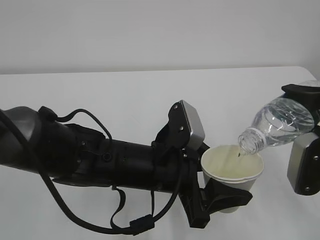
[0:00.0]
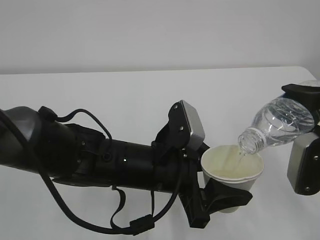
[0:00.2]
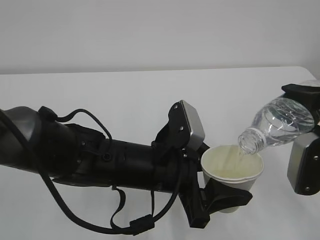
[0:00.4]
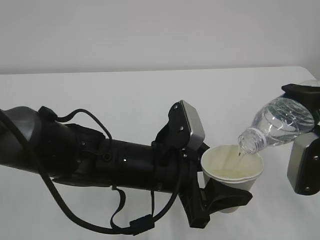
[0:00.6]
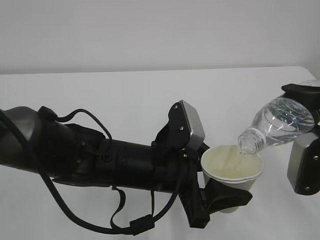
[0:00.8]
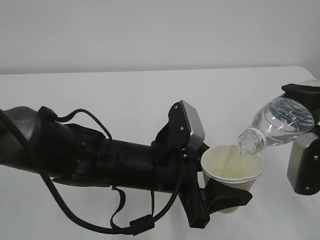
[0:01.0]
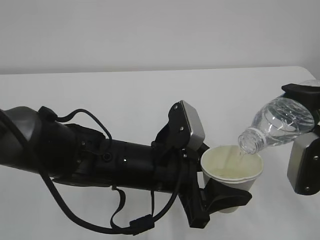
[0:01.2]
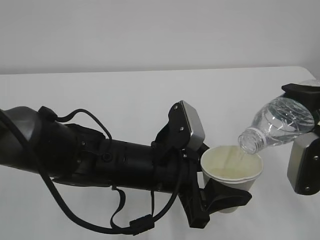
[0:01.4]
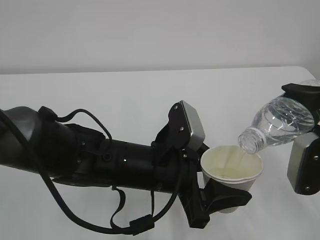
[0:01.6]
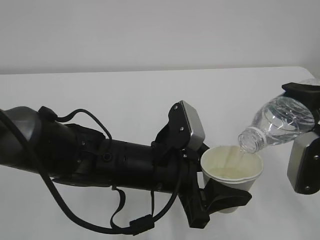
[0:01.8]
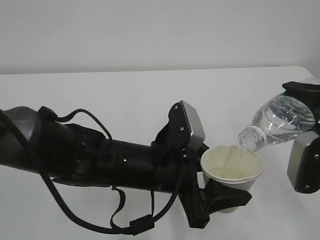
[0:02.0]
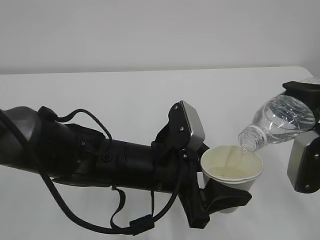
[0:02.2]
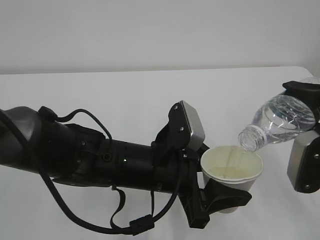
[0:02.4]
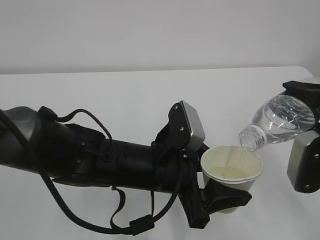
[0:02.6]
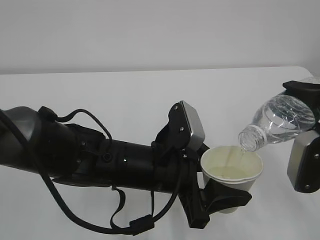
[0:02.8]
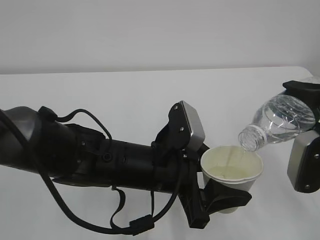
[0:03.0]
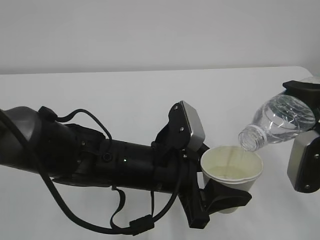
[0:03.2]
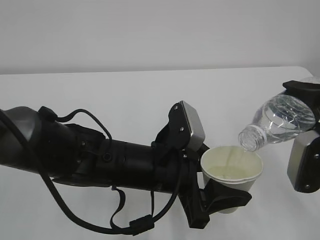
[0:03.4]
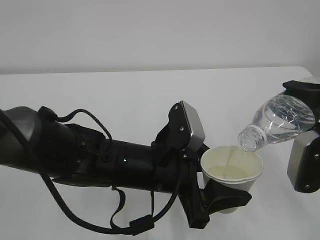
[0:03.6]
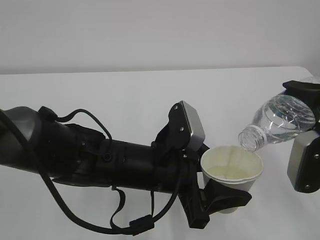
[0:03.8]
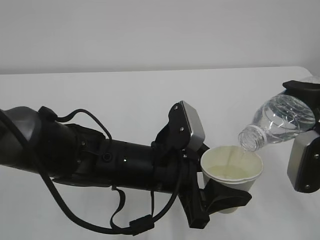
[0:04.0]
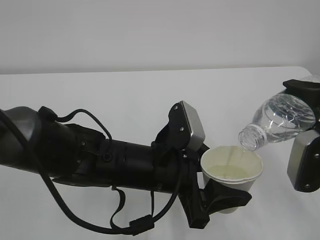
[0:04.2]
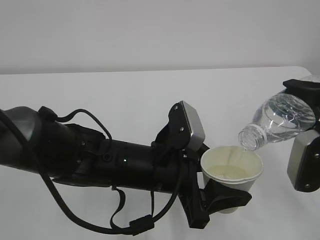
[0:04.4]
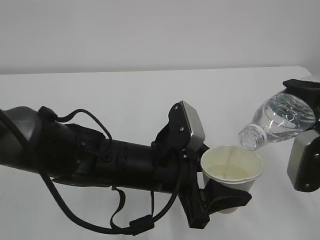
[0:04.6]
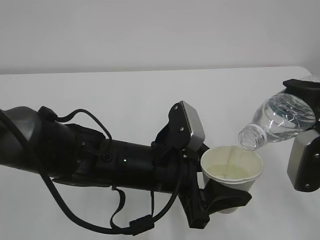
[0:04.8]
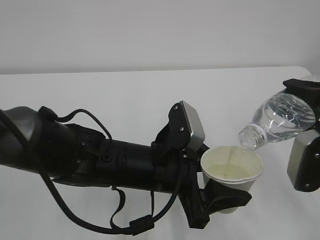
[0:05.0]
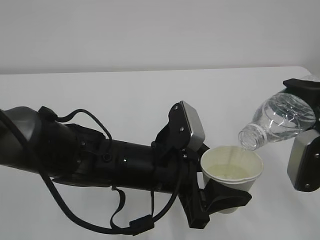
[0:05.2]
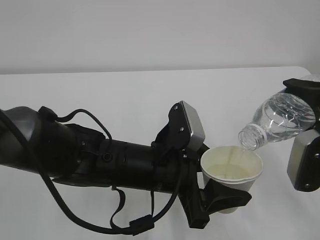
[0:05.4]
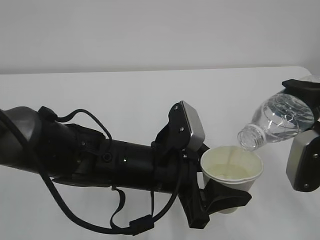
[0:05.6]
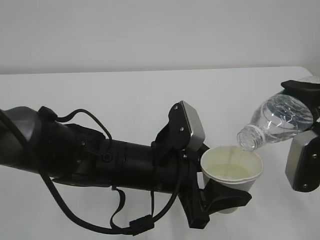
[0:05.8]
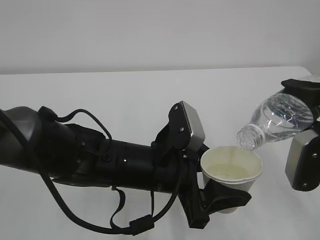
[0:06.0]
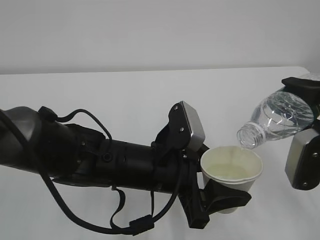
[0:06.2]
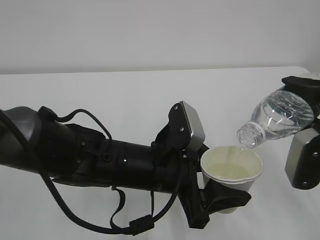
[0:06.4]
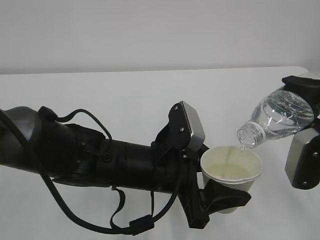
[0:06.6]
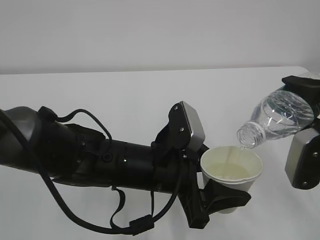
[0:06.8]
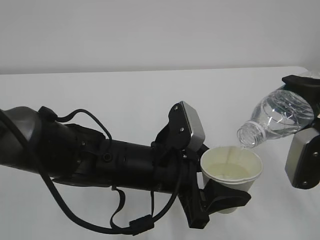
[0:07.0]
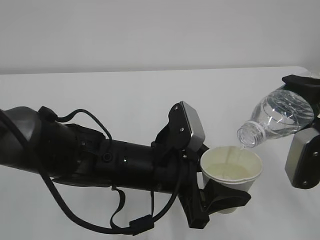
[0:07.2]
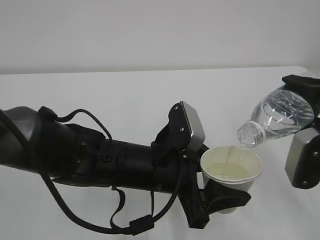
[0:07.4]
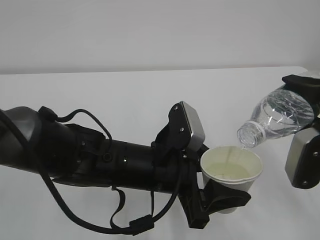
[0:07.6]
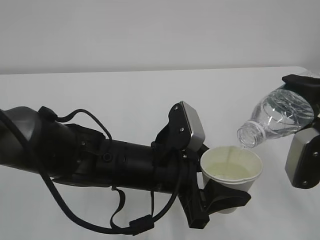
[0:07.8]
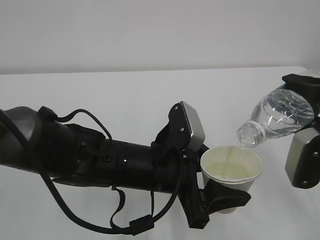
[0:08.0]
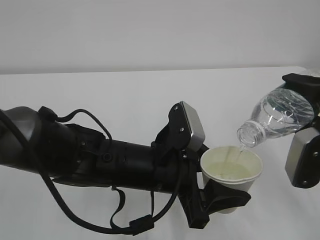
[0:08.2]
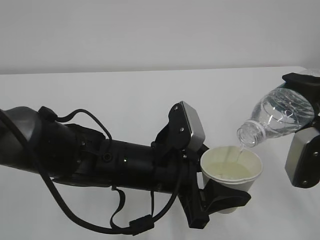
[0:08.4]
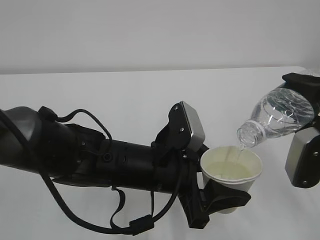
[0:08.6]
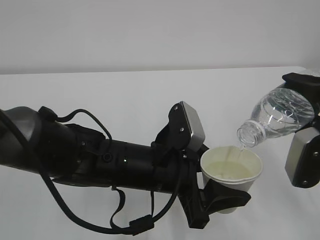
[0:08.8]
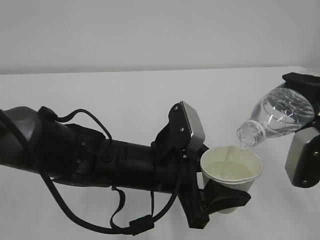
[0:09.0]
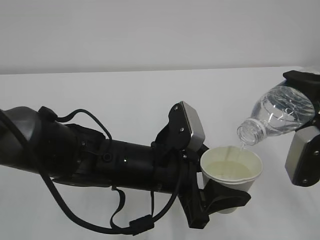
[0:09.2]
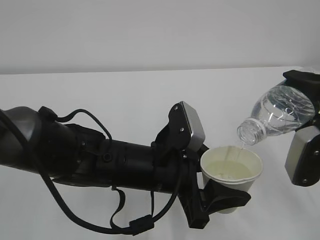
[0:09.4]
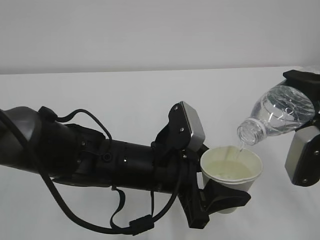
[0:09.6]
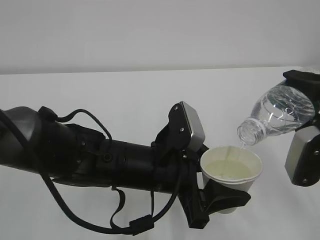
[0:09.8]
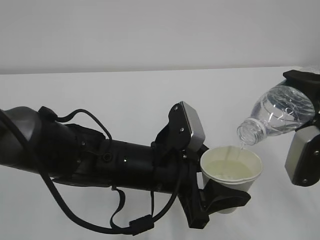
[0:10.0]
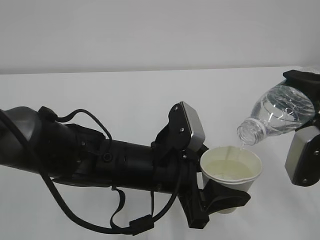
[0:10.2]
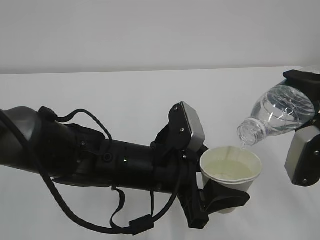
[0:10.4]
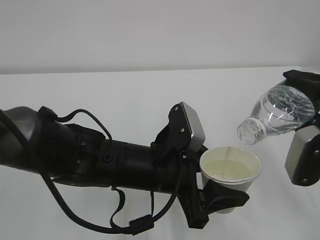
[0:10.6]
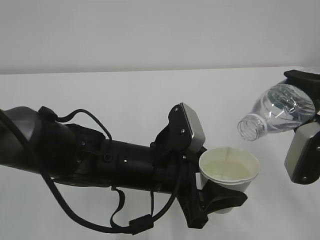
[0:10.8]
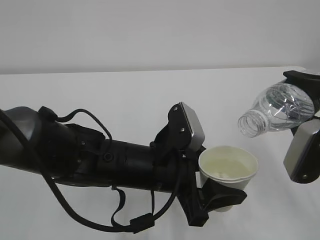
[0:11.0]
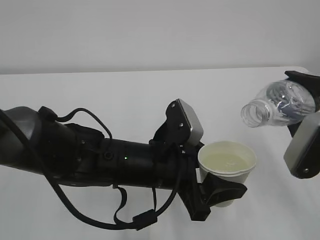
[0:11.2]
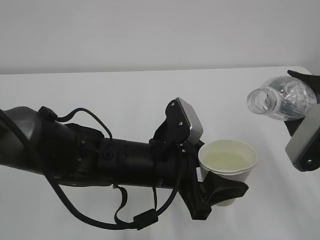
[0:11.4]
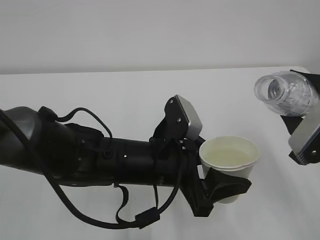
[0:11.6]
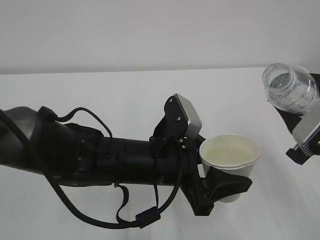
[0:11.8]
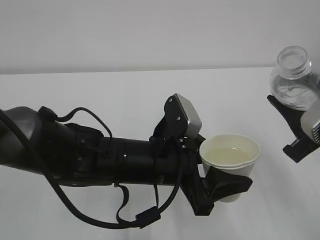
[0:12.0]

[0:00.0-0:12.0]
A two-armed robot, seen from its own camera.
0:00.0 to 0:07.6: Neither gripper changes place.
0:07.6 to 0:10.4: Both grippers stay put.

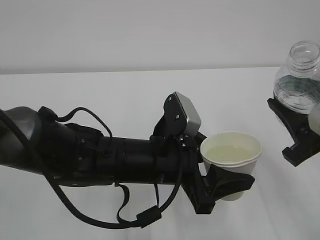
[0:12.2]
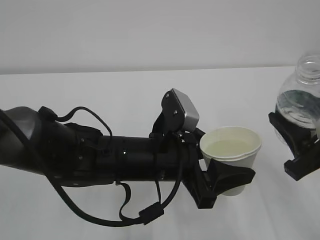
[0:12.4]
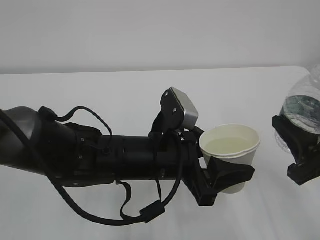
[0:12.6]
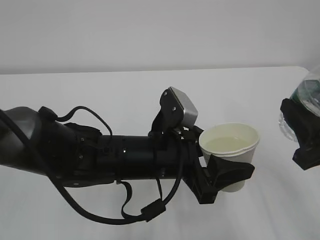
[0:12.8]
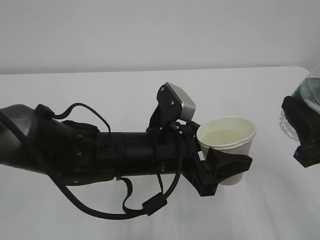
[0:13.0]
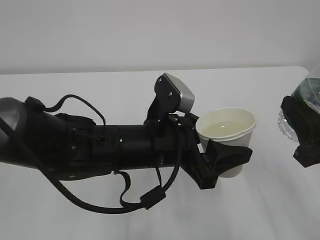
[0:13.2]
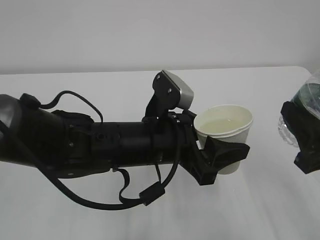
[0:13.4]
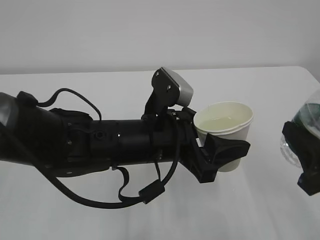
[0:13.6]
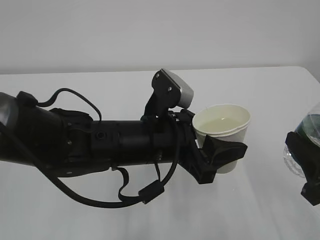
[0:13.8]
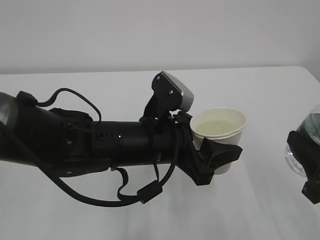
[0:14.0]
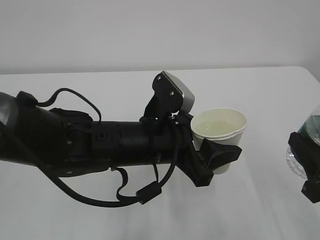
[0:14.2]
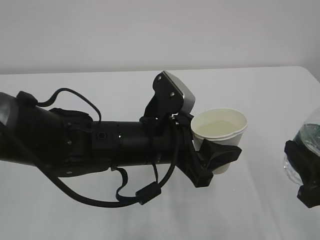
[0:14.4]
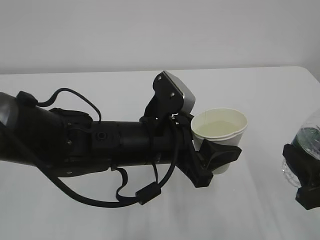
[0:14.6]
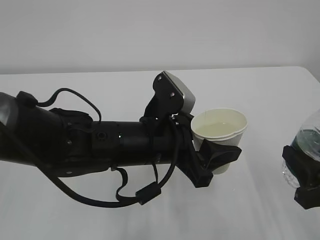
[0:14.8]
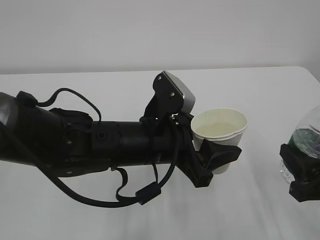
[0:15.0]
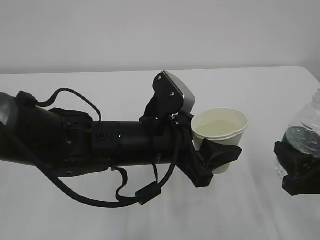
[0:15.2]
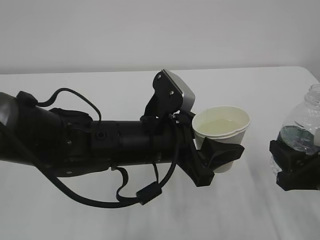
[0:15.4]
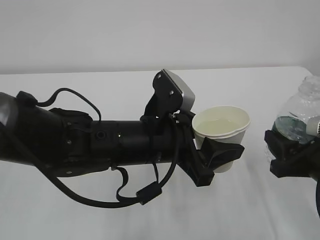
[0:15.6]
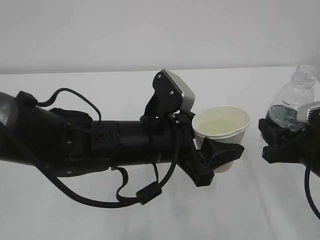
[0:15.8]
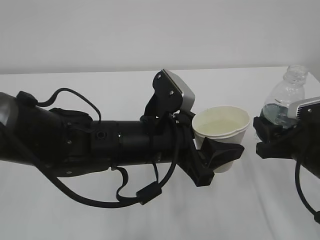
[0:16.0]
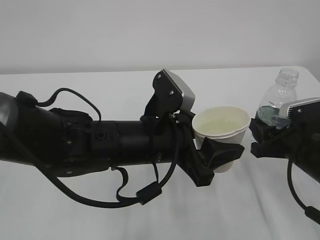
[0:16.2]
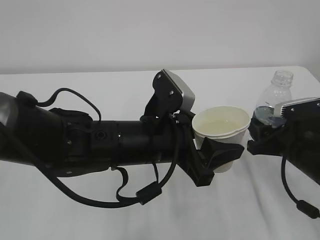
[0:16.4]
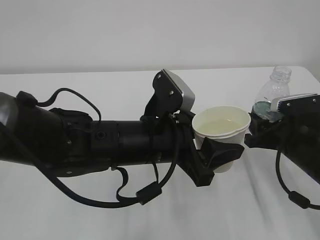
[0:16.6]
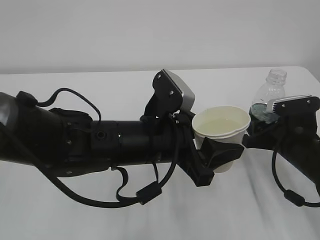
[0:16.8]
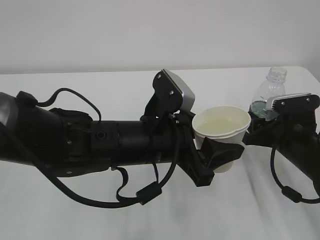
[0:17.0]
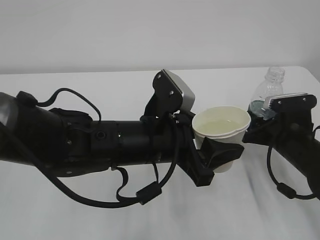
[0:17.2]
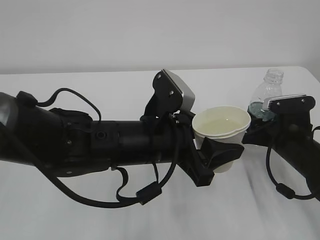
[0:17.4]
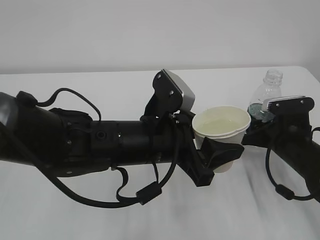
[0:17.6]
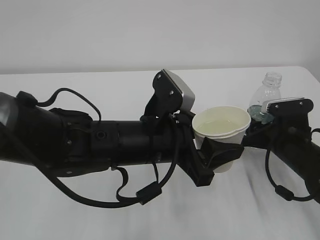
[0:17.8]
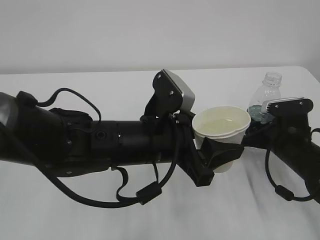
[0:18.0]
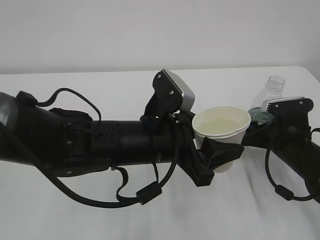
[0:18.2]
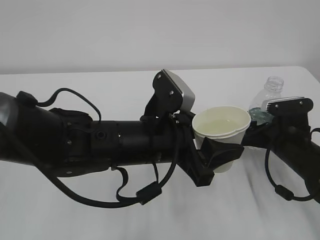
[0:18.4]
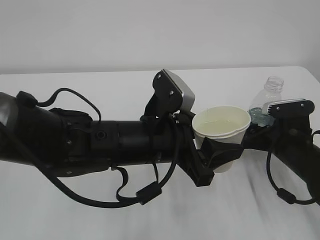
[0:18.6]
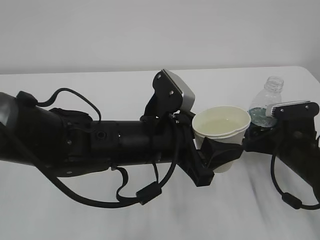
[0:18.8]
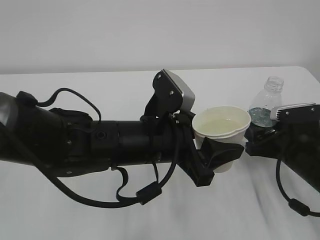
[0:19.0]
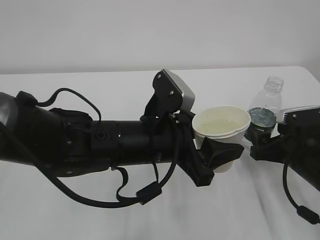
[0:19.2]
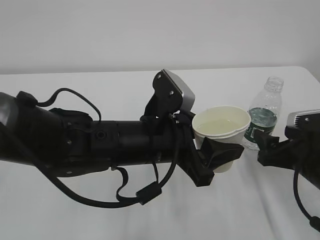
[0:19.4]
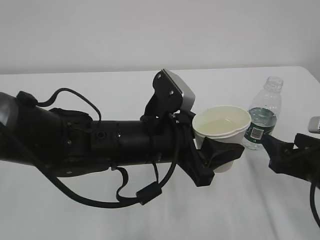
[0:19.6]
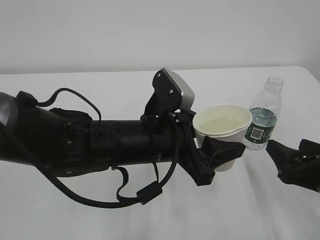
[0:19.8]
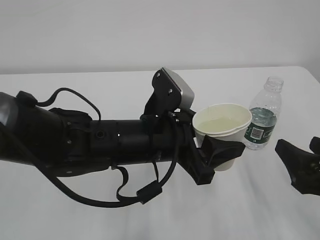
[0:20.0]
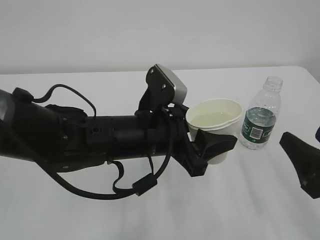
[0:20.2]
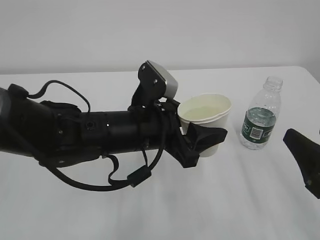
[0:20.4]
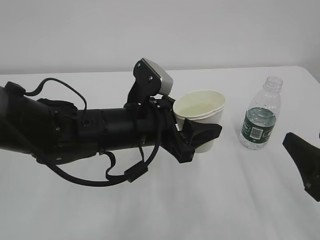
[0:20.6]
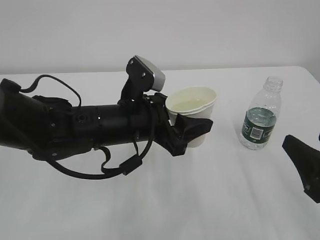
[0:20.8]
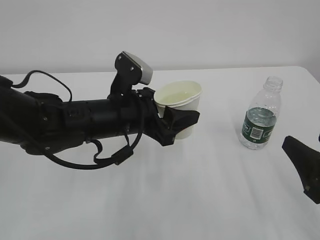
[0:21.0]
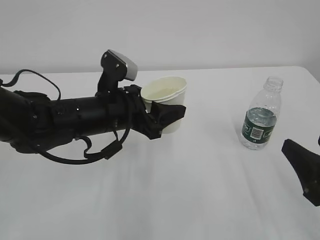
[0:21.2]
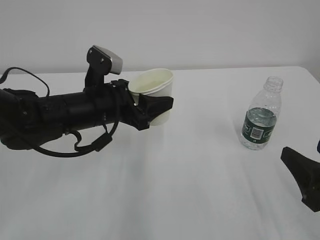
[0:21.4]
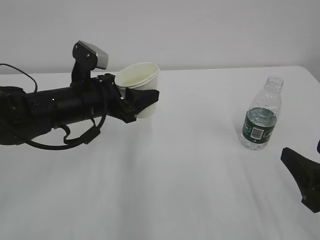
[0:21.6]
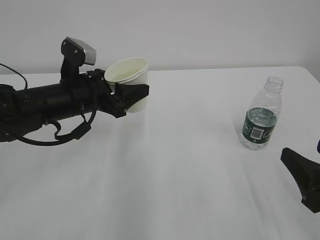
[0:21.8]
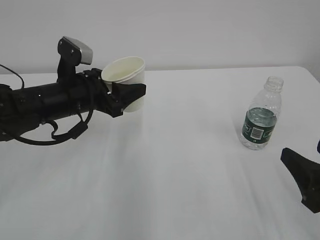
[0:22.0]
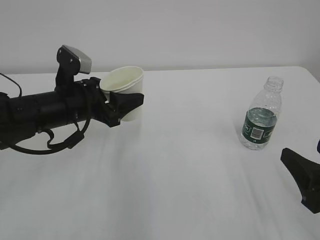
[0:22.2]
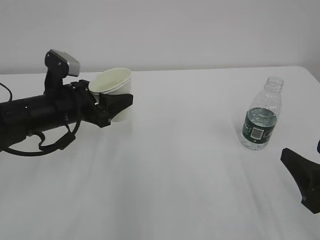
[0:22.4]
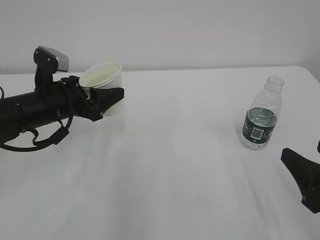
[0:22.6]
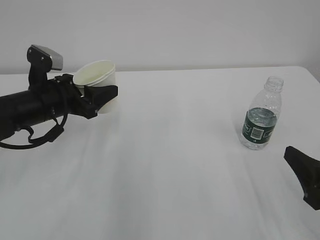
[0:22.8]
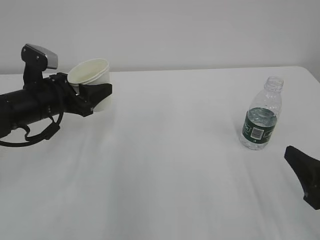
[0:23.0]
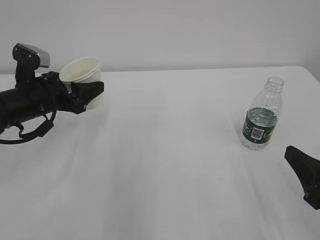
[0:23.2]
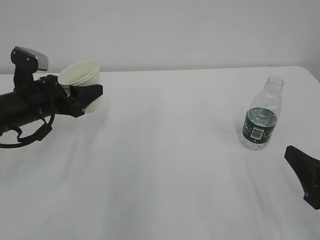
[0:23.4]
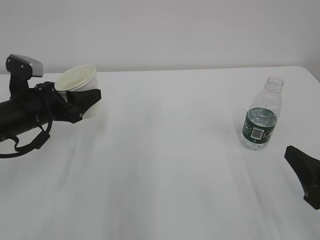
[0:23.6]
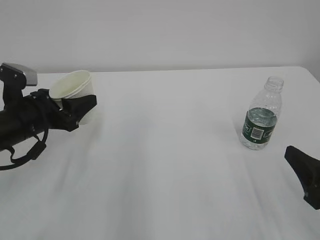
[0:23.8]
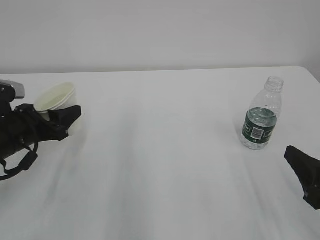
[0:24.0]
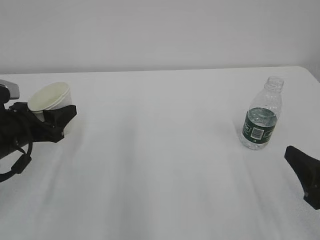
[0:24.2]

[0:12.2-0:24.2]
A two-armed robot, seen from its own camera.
0:12.2 to 0:13.8: The right gripper goes some 5 cm backward.
0:13.8 to 0:15.2: The grippers move only a little.
0:15.2 to 0:16.6: The right gripper moves forward, roughly 10 cm.
0:16.6 to 0:18.2: The right gripper opens.
0:18.2 to 0:19.8: The right gripper shifts roughly 10 cm backward.
0:19.8 to 0:21.2: The right gripper shifts some 5 cm backward. Meanwhile the left gripper goes some 10 cm to the left and forward.
0:21.2 to 0:22.6: The left gripper moves to the left, about 10 cm.
0:22.6 to 0:24.2: The left gripper travels to the left by roughly 5 cm.
